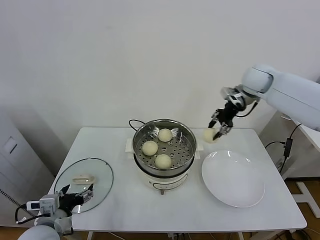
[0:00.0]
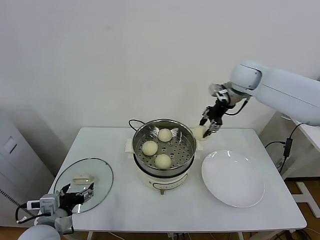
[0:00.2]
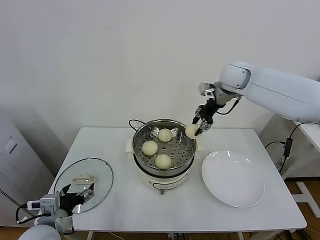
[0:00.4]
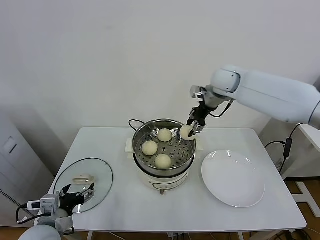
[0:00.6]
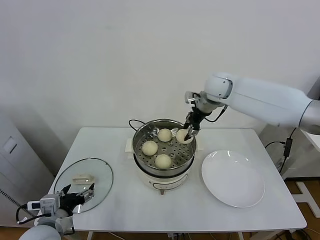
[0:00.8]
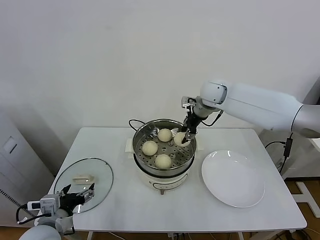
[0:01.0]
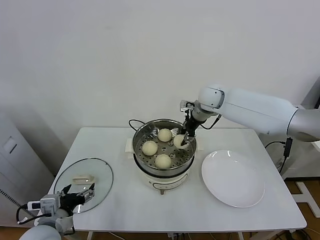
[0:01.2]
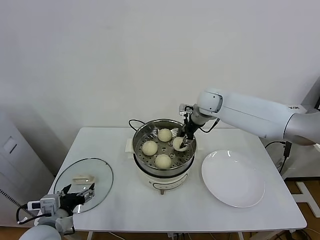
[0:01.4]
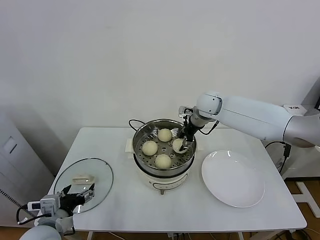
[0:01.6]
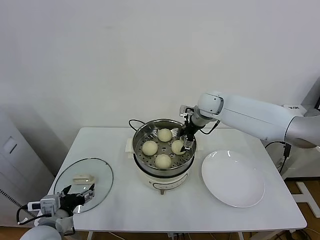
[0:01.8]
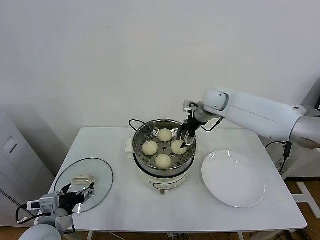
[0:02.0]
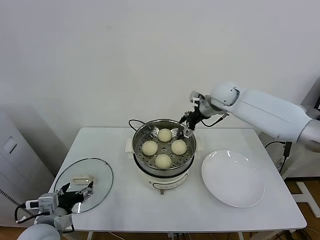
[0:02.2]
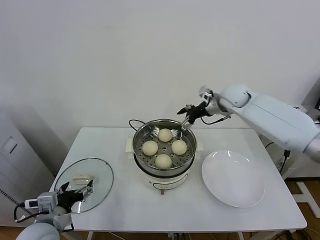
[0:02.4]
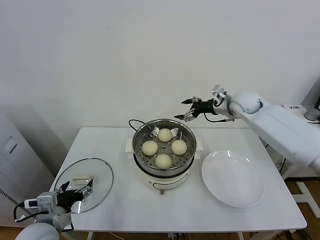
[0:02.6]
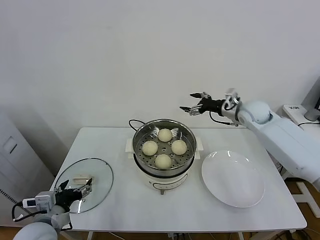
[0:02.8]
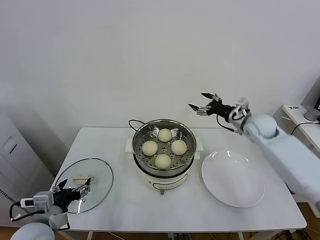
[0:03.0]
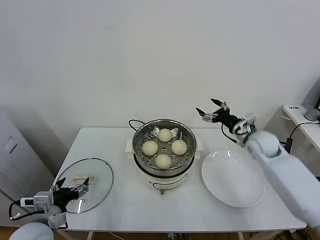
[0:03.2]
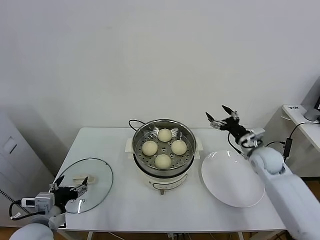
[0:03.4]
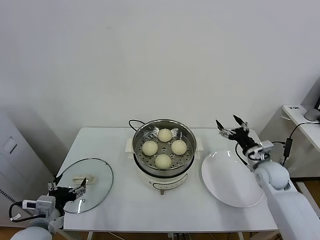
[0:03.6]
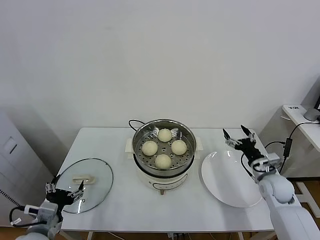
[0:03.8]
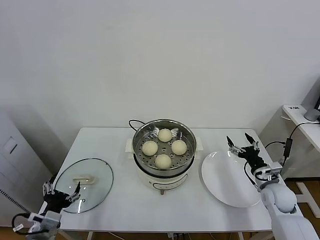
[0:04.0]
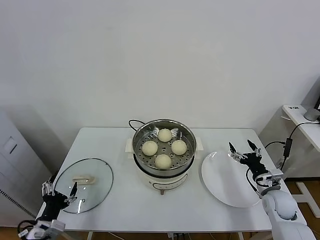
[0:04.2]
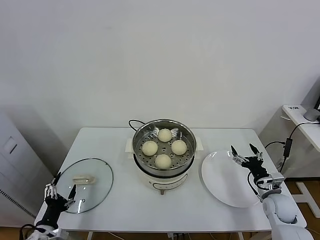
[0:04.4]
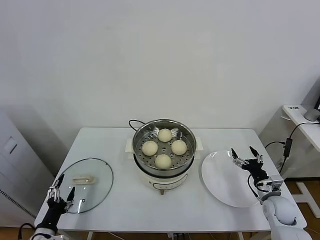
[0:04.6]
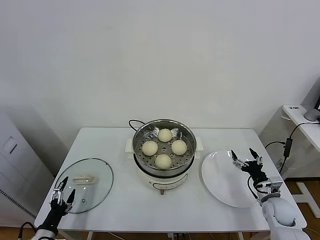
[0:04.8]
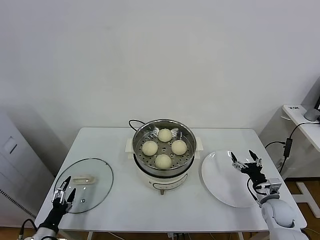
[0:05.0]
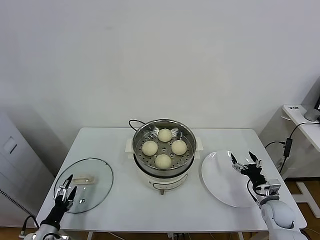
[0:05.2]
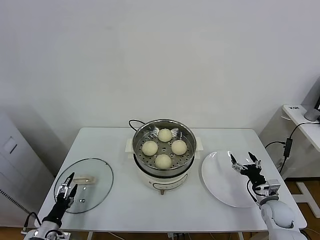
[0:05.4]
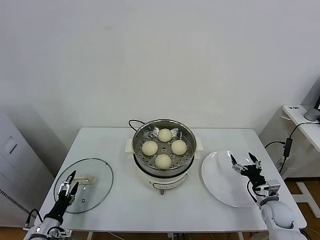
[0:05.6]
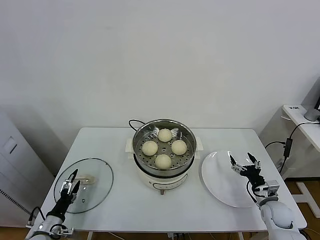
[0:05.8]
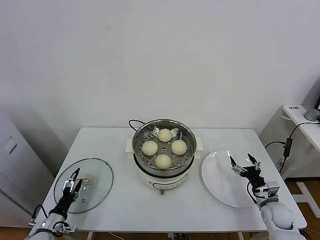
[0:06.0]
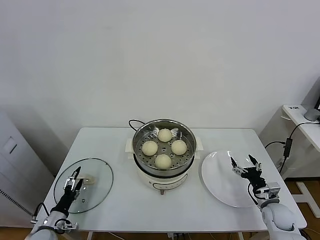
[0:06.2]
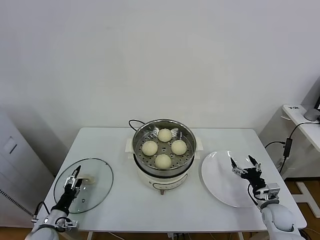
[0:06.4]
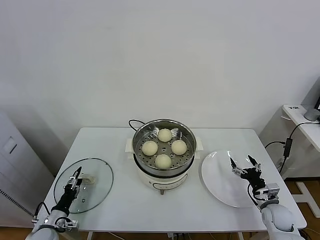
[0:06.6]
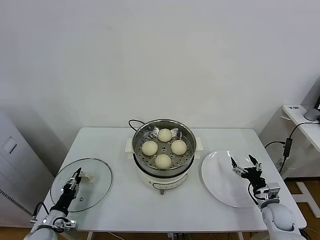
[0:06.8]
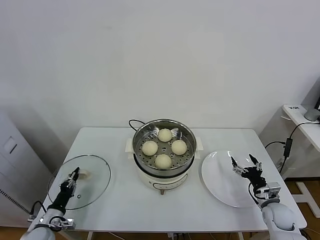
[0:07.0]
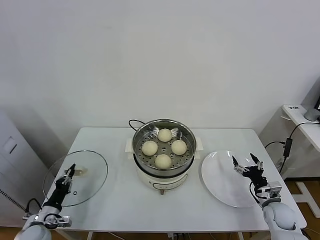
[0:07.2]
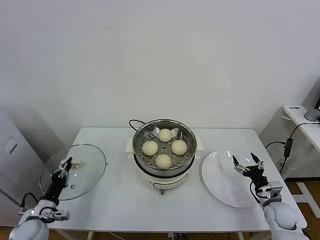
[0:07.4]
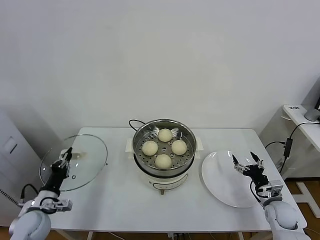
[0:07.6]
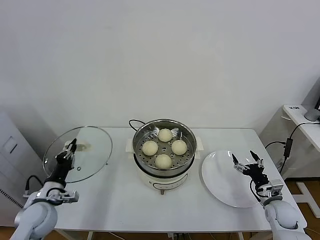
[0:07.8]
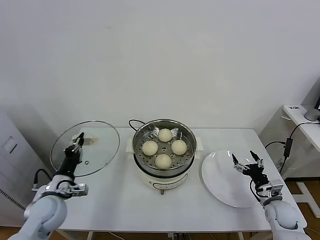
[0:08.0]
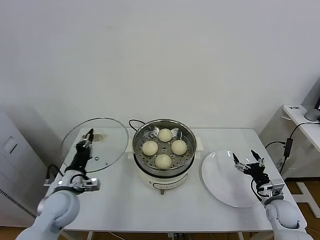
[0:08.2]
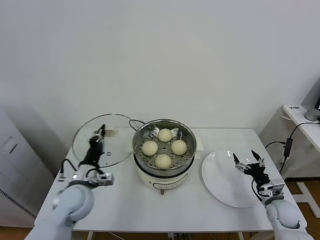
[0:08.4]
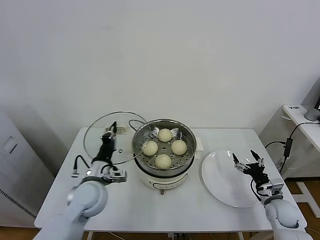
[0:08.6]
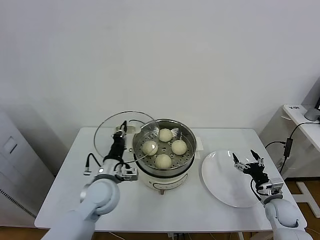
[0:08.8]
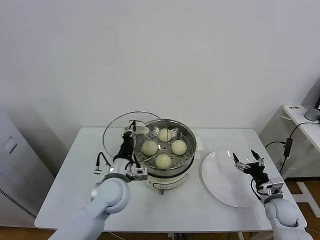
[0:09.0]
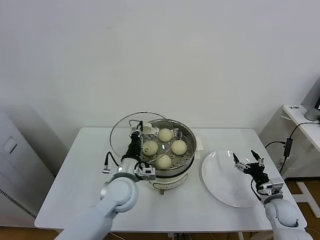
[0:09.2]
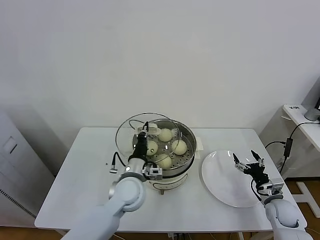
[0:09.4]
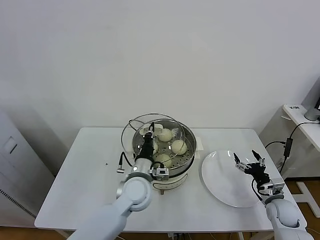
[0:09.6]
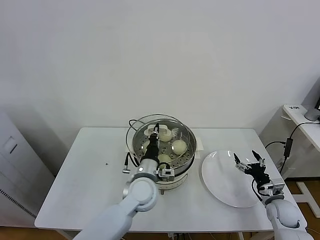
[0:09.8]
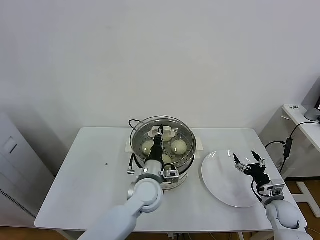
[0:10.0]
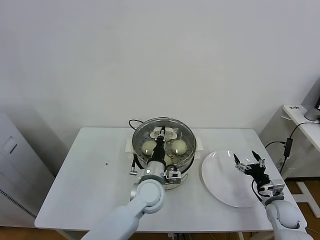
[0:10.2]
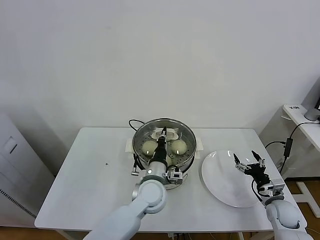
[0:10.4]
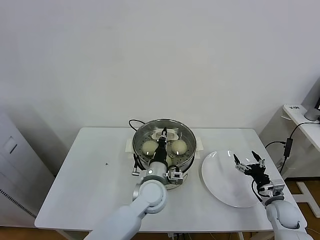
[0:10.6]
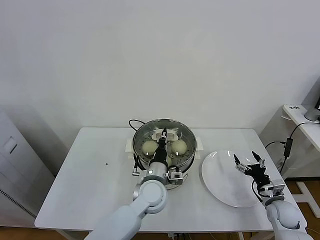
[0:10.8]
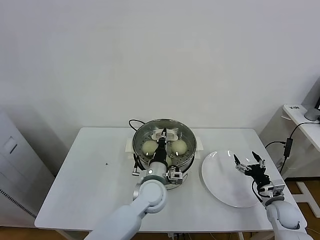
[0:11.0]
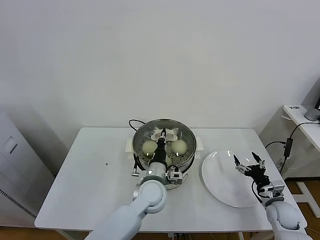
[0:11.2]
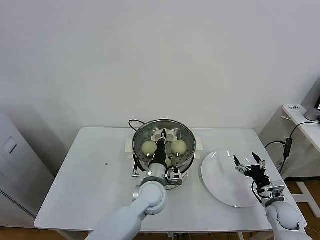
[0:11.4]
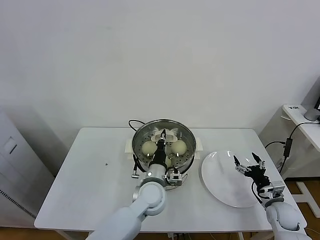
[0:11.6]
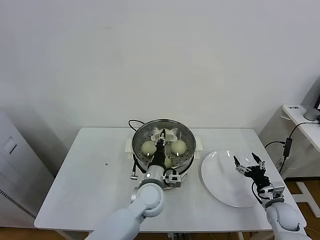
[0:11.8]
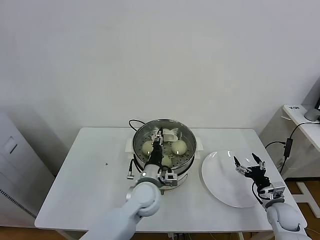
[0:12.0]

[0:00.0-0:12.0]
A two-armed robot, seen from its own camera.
Task of the whole recording: take steamed baozi put them in steamer.
Step, 0:00.0 to 0:02.0: Place the baozi on the steamer with right gripper.
Step, 0:02.2 to 0:07.2: Grasp the pot lid with left gripper.
0:00.0 to 0:01.6: The right gripper heads to the left and downward, covering some 15 cm, and opens its fingers.
0:01.6 to 0:03.0: The right gripper shifts about 20 cm to the right and backward, and opens.
0:03.0 to 0:04.4: The left gripper heads downward and to the left, covering about 15 cm. The right gripper moves downward and backward, some 25 cm.
0:04.4 to 0:06.0: The left gripper goes roughly 10 cm downward and forward.
0:06.0 to 0:07.6: The left gripper shifts some 10 cm upward, and closes its fingers.
0:07.6 to 0:09.0: The left gripper goes approximately 25 cm to the right.
0:09.0 to 0:10.4: The left gripper heads to the right, covering roughly 10 cm.
0:10.4 to 0:12.0: The left gripper opens its fingers.

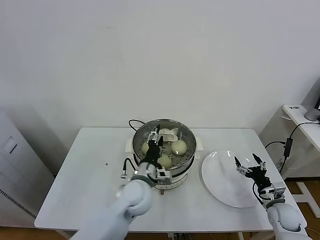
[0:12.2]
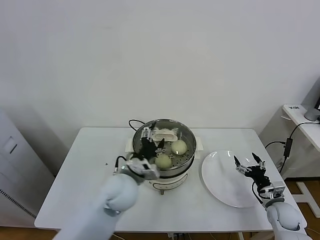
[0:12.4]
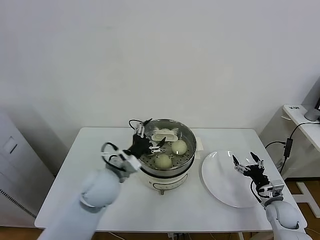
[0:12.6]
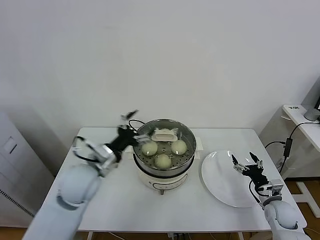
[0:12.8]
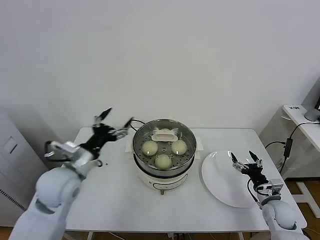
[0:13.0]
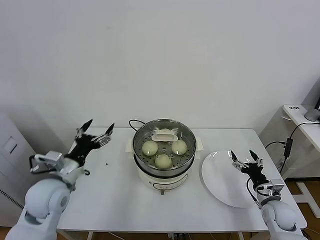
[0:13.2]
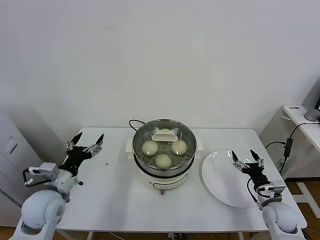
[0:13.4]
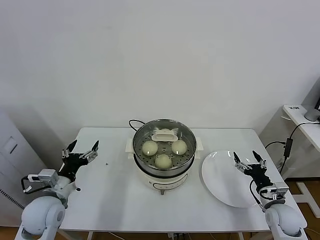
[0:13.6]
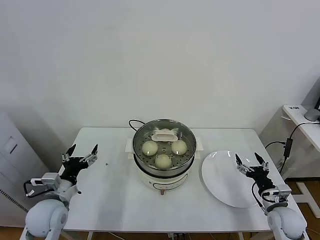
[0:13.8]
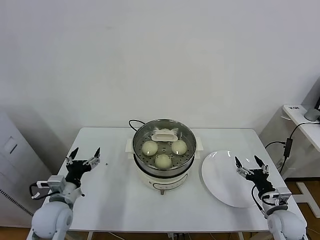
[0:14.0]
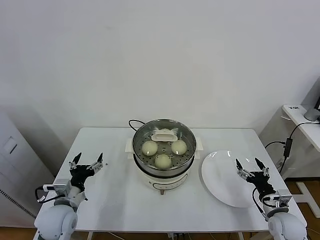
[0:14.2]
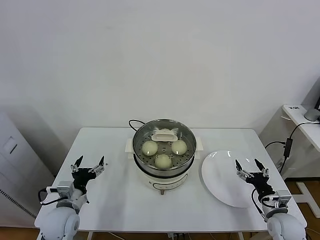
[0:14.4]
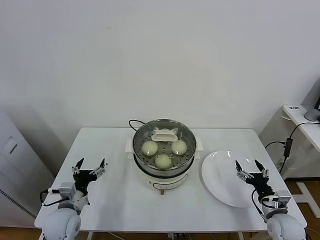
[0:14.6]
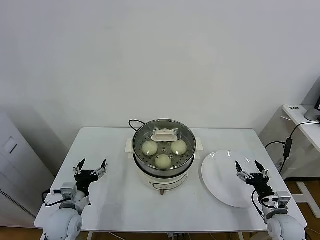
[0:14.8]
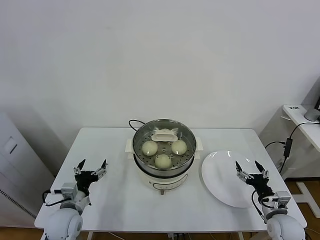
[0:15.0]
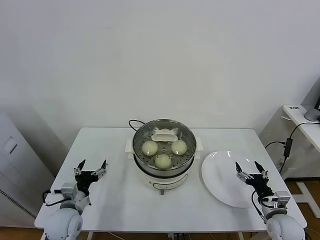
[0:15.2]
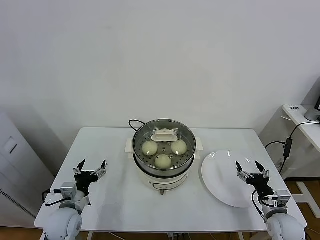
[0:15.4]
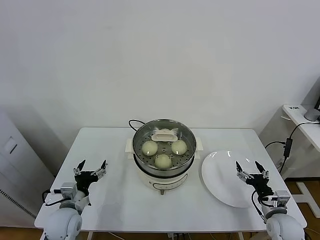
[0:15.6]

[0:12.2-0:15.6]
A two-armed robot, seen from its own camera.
Task of the whole recording: take steamed baozi put them in steamer.
0:12.2 to 0:13.8: The right gripper shifts by about 5 cm. The left gripper is displaced to the left by about 25 cm.
0:13.8 to 0:15.6: The left gripper travels downward by some 5 cm.

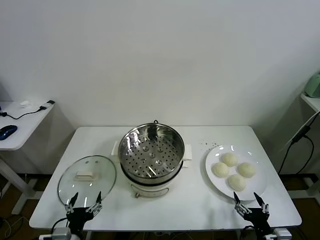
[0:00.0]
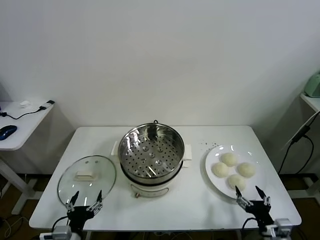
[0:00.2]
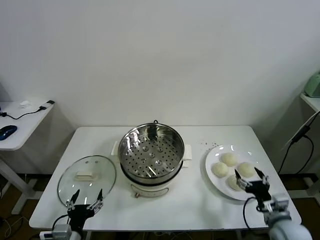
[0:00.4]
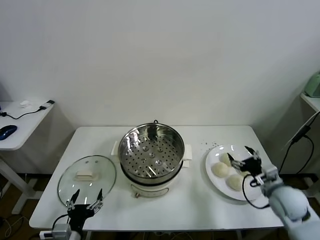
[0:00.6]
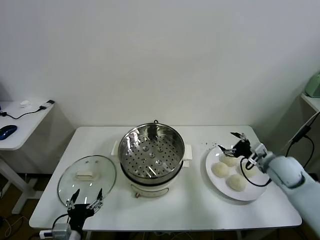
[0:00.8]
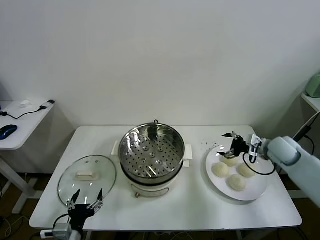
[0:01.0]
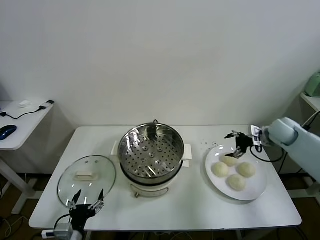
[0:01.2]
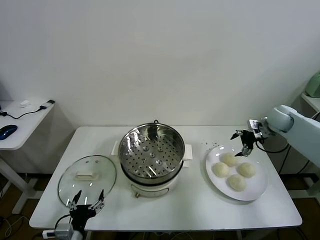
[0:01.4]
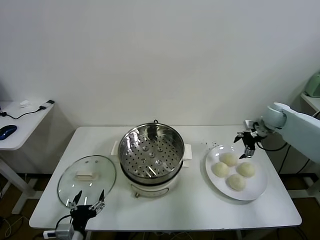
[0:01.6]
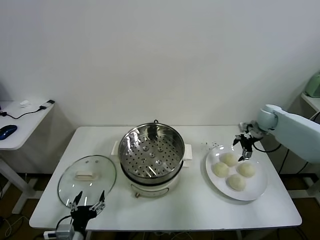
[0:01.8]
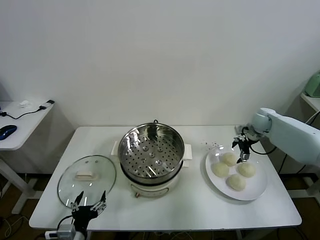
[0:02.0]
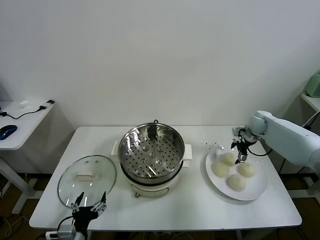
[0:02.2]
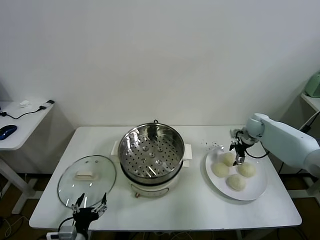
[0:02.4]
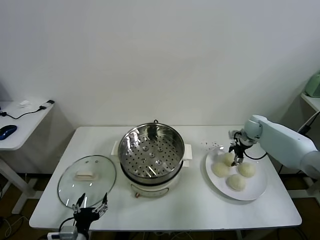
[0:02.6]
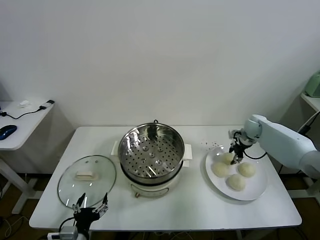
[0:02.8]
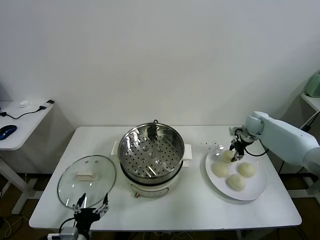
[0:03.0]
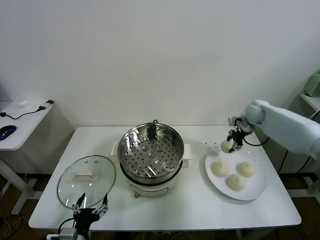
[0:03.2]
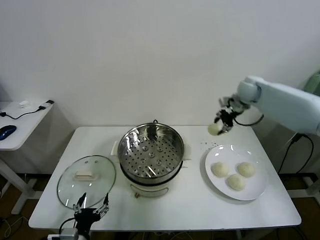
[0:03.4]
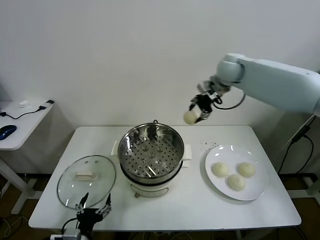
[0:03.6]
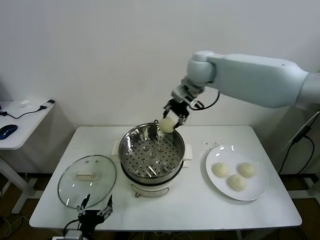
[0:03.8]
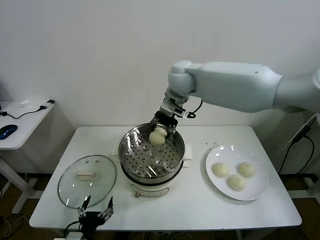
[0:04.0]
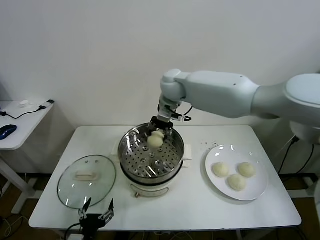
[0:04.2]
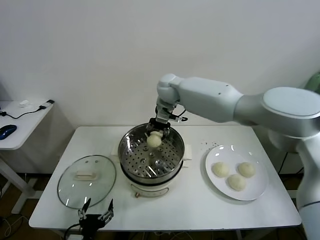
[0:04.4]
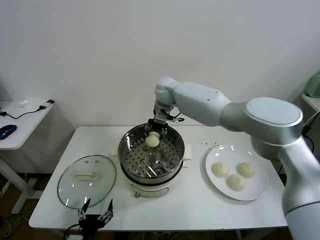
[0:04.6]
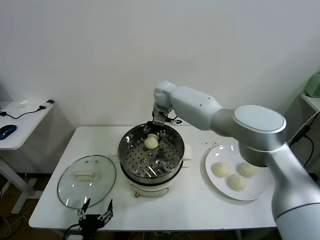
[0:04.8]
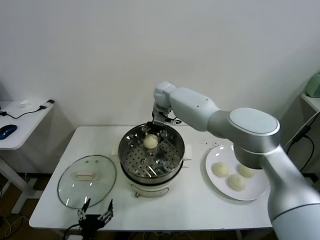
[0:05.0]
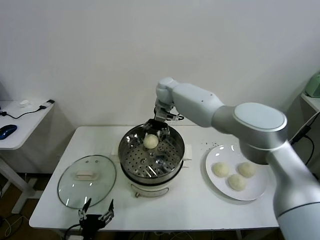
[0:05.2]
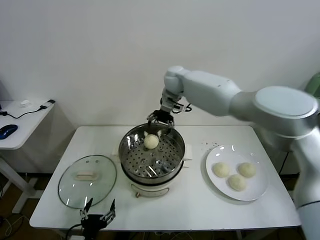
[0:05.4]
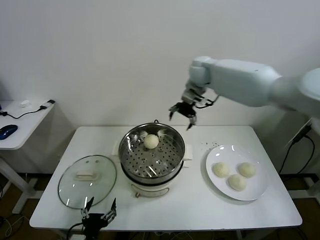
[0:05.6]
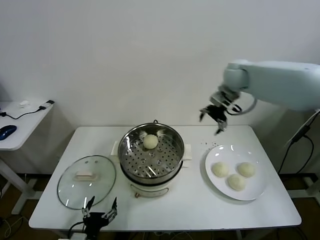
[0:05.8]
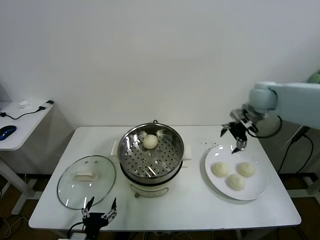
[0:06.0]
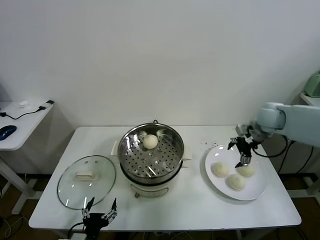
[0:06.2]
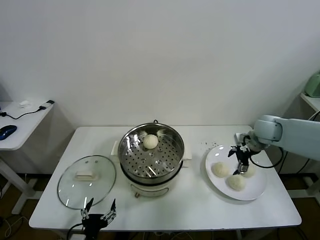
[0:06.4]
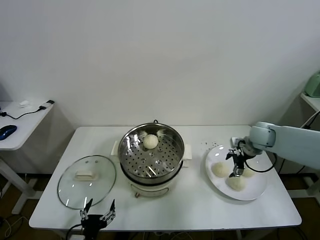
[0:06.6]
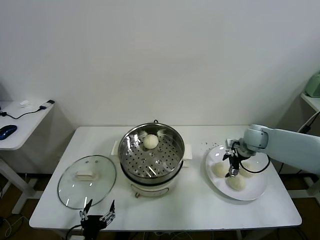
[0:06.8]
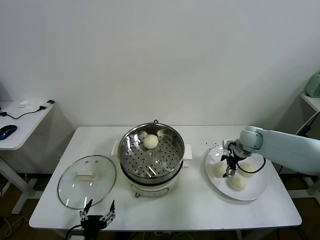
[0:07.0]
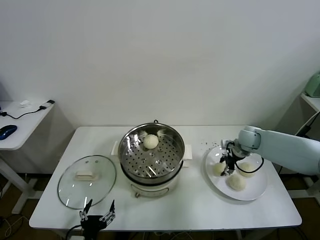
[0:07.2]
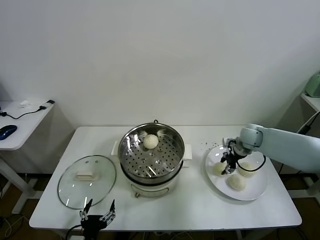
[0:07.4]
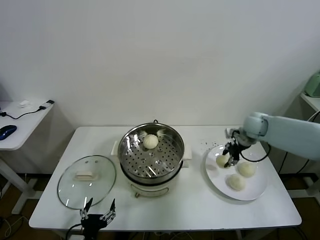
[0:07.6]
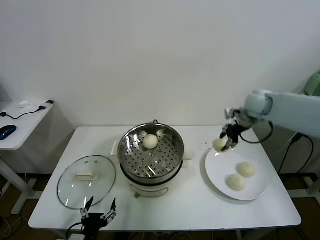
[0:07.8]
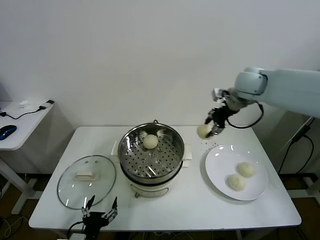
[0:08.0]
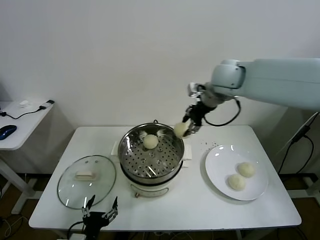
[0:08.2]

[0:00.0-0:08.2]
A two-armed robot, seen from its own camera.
Task of the whole recording: take steamed baozi put them in steamer.
Step, 0:00.0 to 0:02.8: Grasp the baozi in the plate with right gripper.
Step, 0:03.0 to 0:05.2: Place the baozi on the steamer with right gripper.
Step, 0:05.4 to 0:07.2: Grasp the baozi in the plate with right gripper.
0:01.6 to 0:03.2: The right gripper shifts some 10 cm to the left and upward, and closes.
0:03.2 to 0:05.0: The right gripper is displaced to the left by about 35 cm, and opens up.
0:05.0 to 0:06.6: The right gripper travels to the right and backward by about 35 cm.
0:06.6 to 0:08.2: The right gripper goes roughly 30 cm upward and to the left, and closes its fingers.
